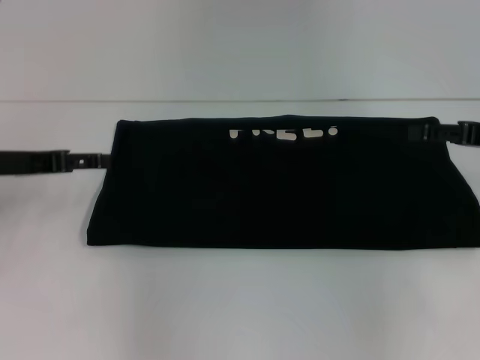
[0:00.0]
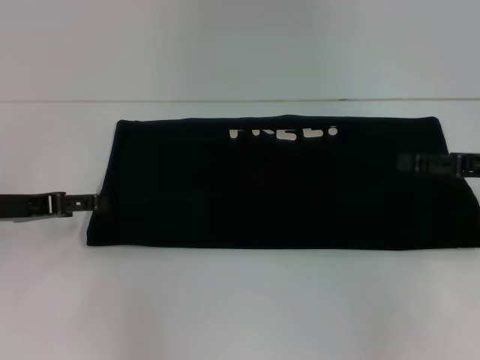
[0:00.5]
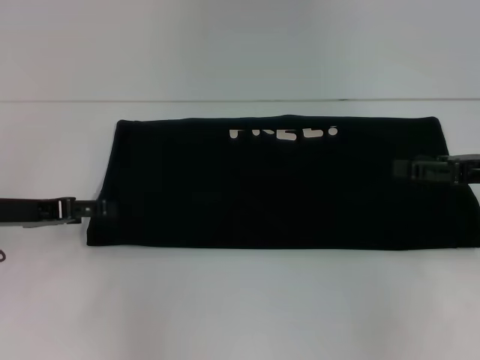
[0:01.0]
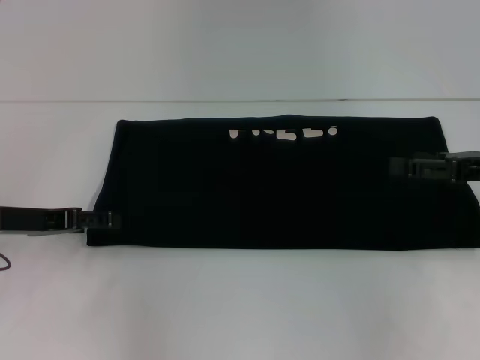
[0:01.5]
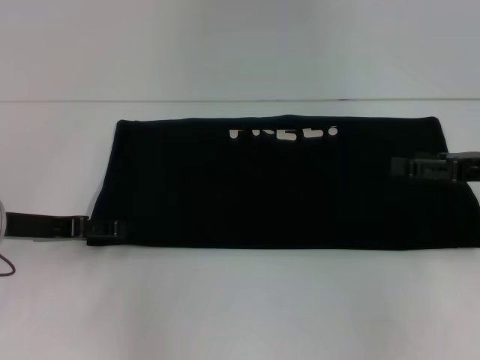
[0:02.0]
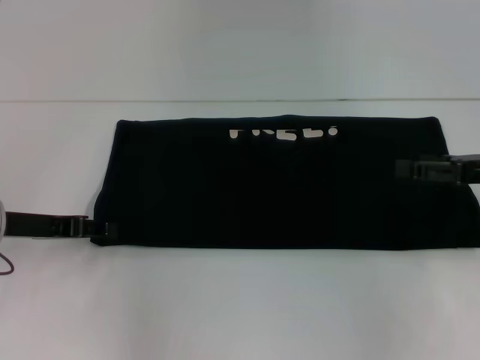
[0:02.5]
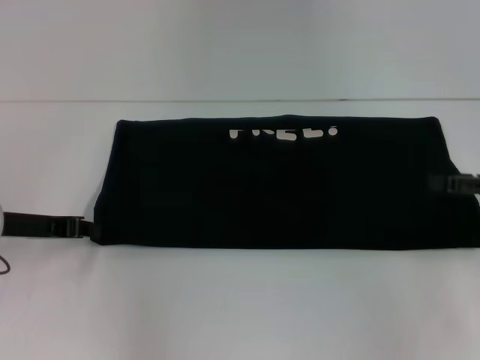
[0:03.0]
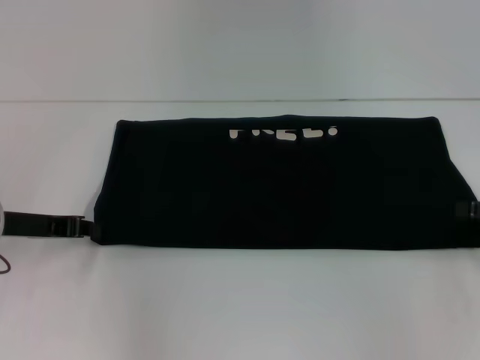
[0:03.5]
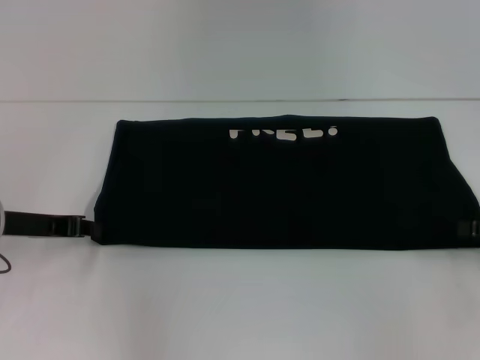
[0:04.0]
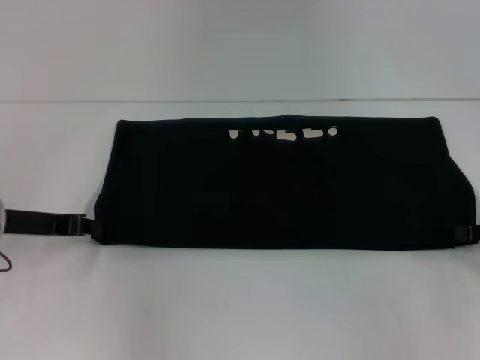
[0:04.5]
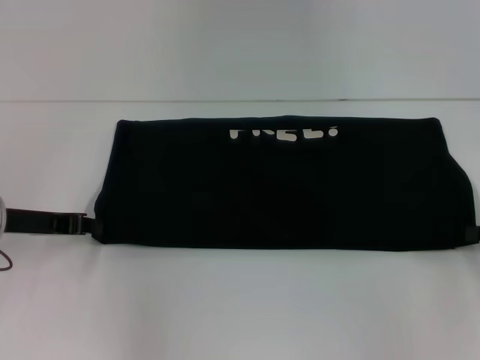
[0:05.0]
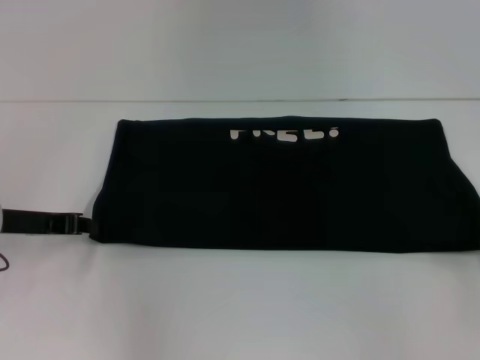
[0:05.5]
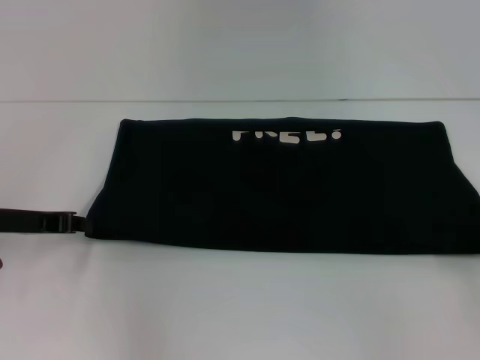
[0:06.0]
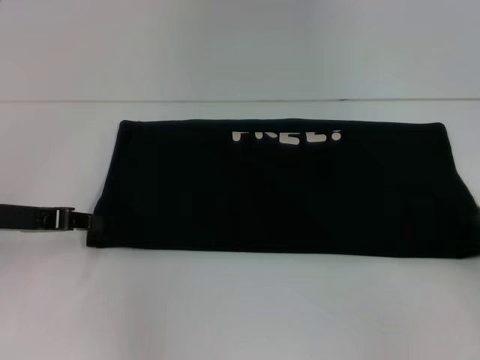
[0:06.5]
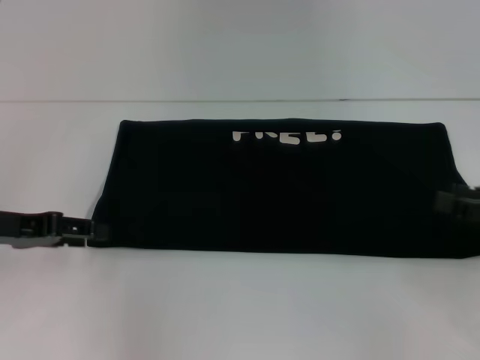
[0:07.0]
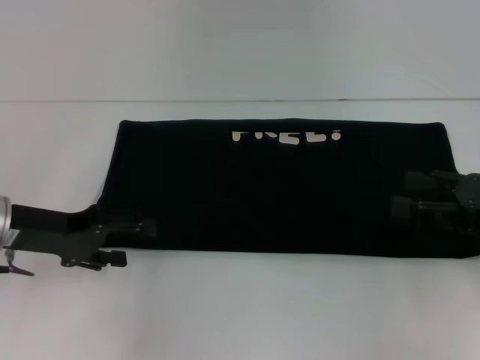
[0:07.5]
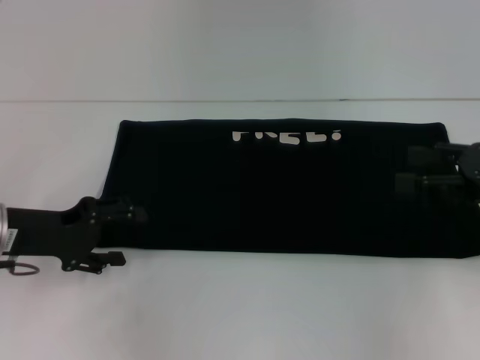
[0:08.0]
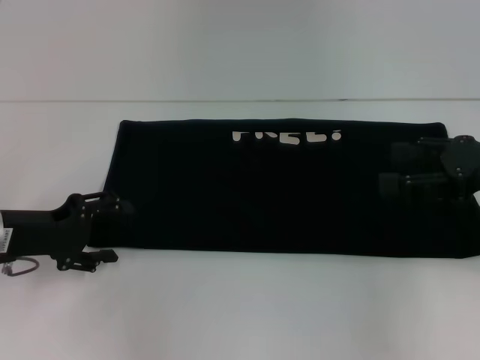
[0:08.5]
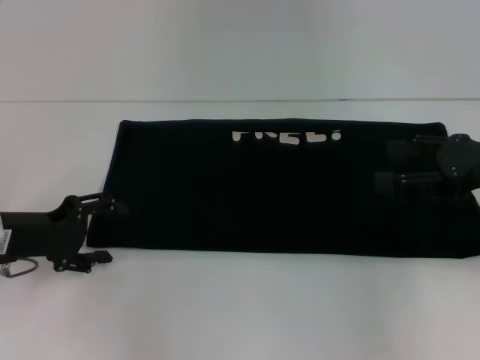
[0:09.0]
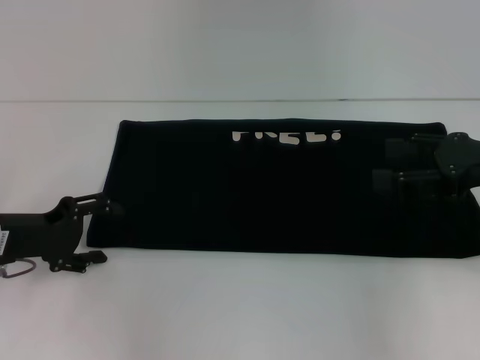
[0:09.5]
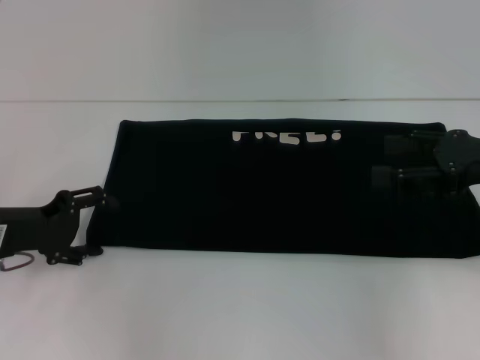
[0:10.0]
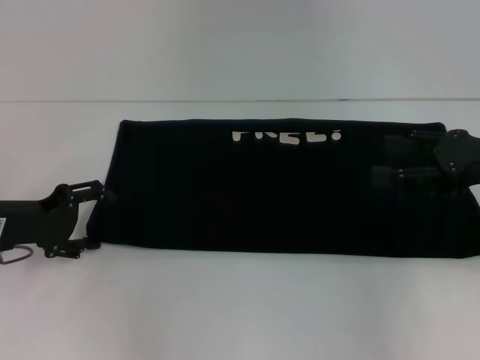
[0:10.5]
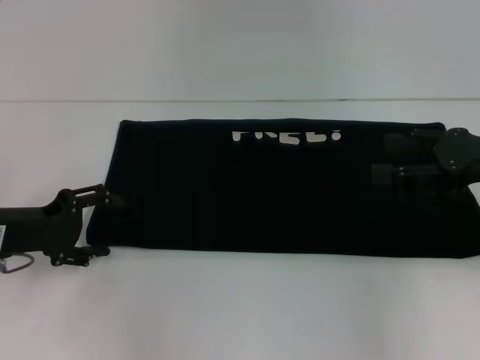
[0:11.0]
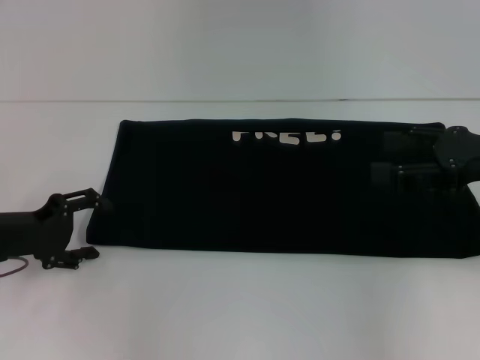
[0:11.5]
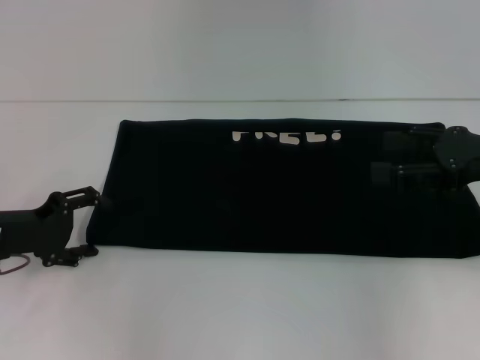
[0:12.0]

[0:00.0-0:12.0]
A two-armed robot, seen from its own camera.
0:00.0 to 0:02.0: The left gripper shifts by approximately 5 cm.
0:02.0 to 0:04.0: The left gripper closes up.
0:04.0 to 0:06.0: The right gripper closes.
0:06.0 to 0:08.0: The right gripper shifts roughly 10 cm upward and to the left, and opens its fingers. Meanwhile the left gripper opens up.
0:08.0 to 0:10.0: The grippers stay close to where they were, moving slightly.
0:10.0 to 0:12.0: Neither gripper changes place.

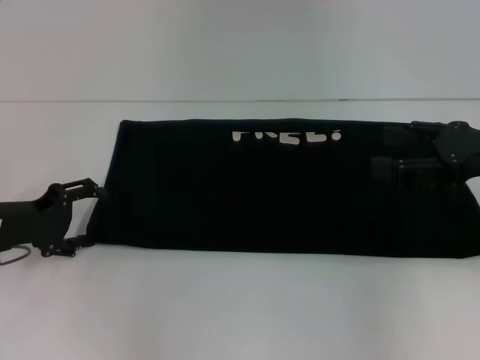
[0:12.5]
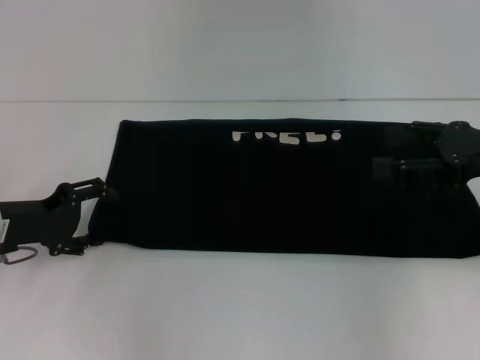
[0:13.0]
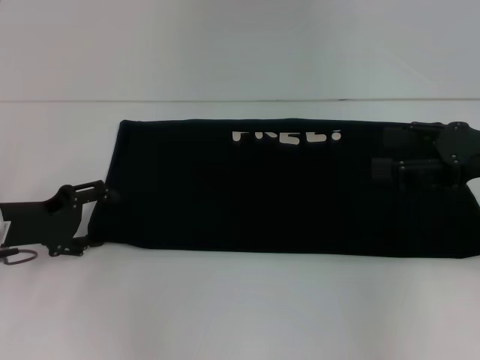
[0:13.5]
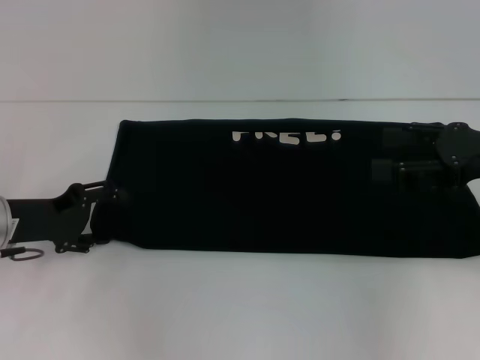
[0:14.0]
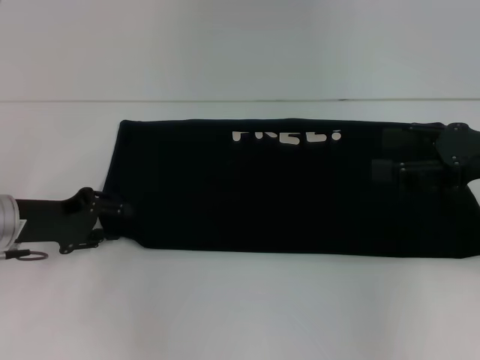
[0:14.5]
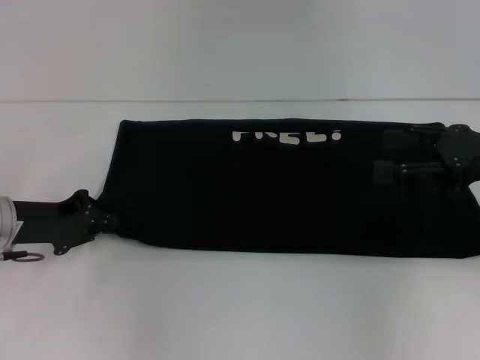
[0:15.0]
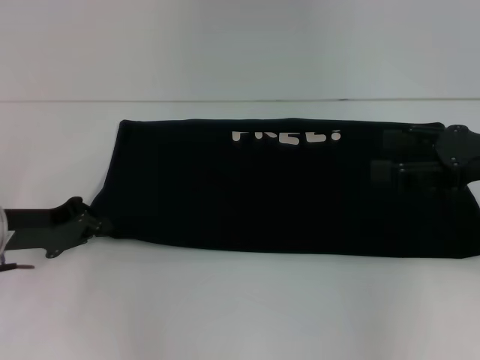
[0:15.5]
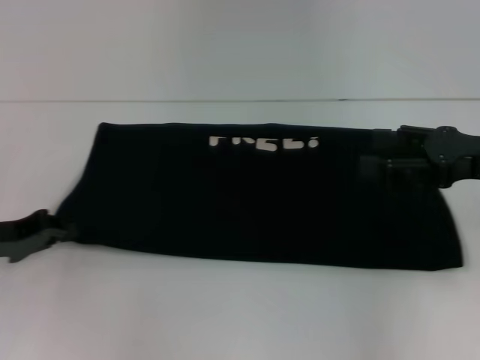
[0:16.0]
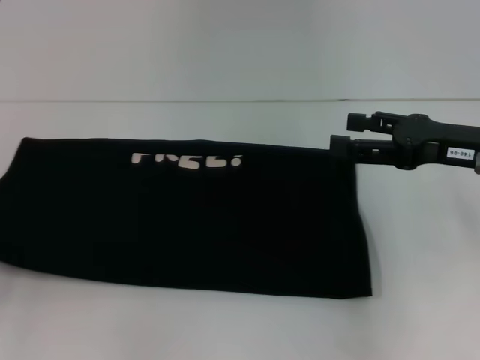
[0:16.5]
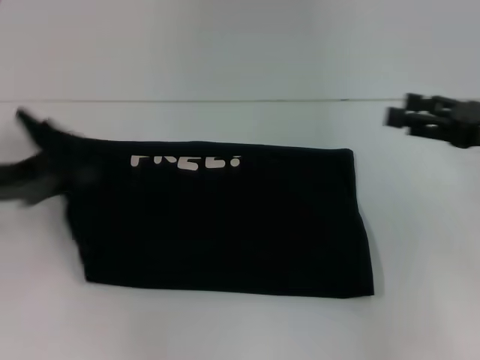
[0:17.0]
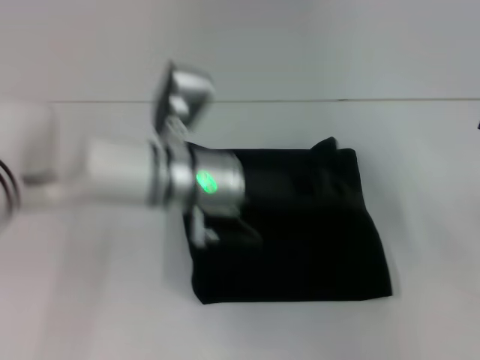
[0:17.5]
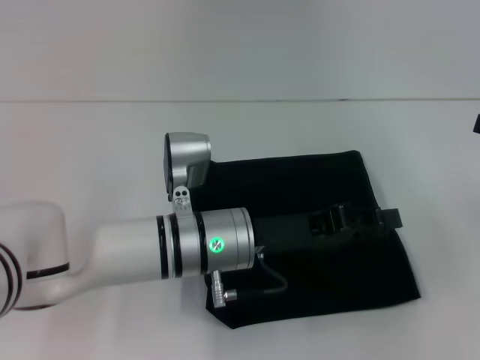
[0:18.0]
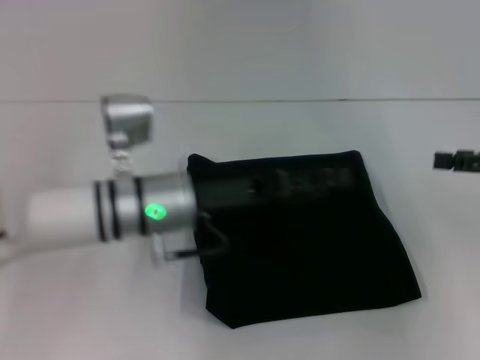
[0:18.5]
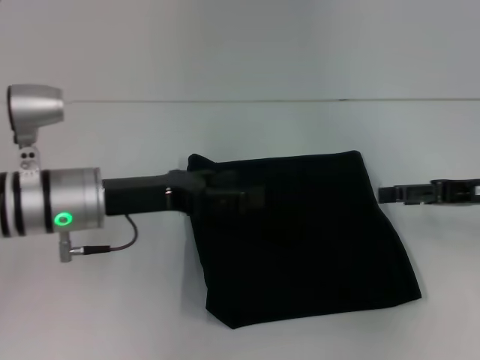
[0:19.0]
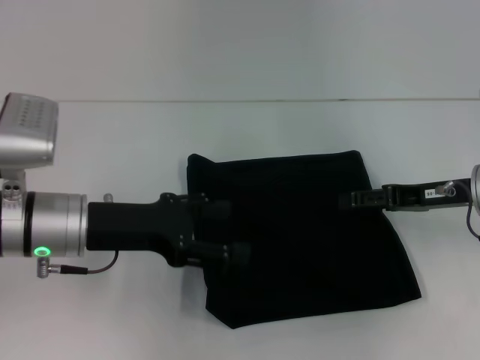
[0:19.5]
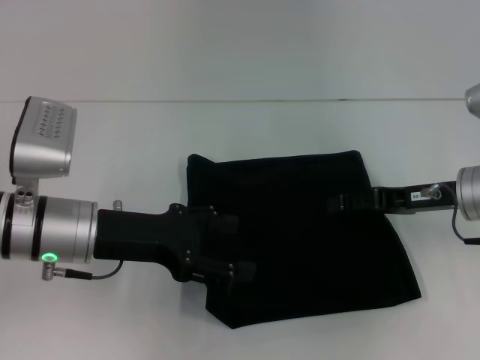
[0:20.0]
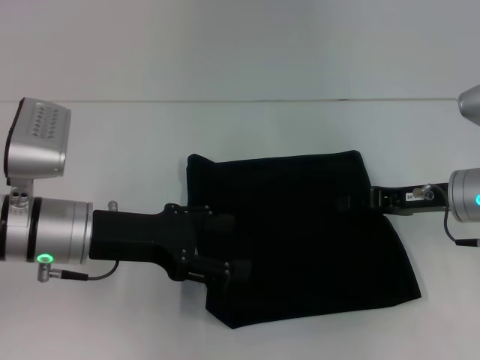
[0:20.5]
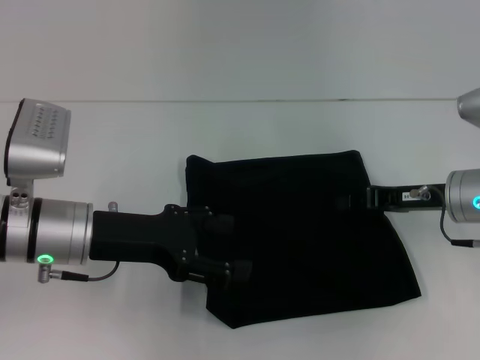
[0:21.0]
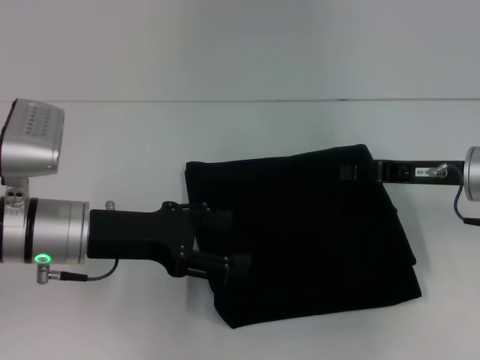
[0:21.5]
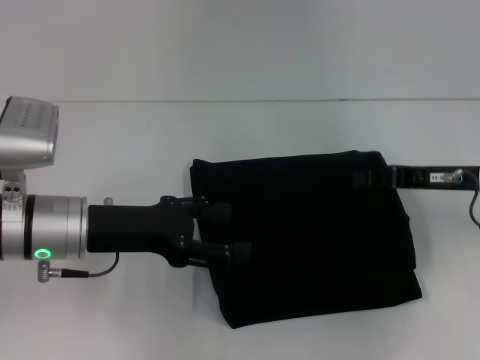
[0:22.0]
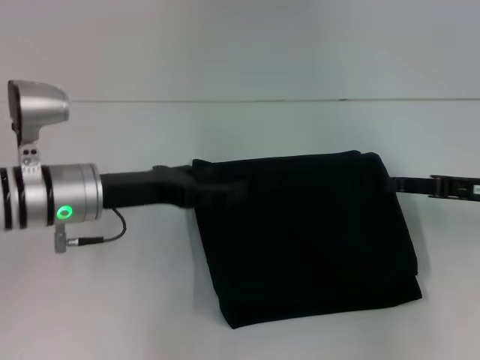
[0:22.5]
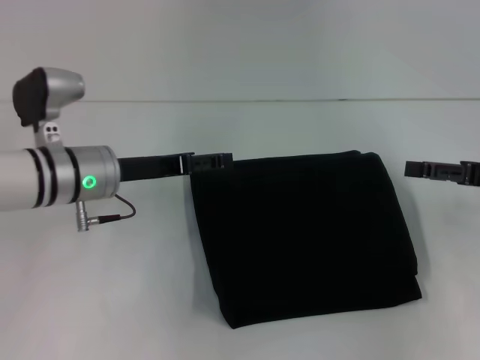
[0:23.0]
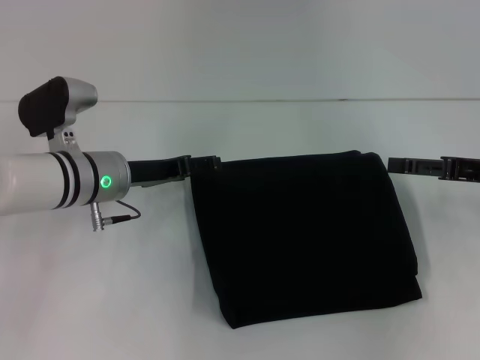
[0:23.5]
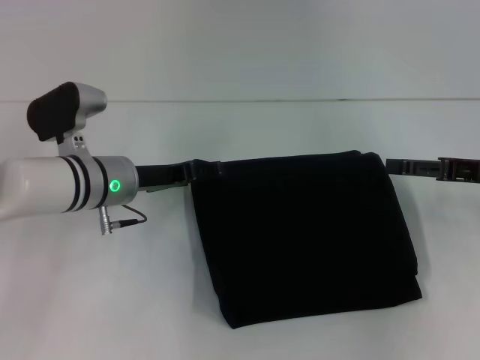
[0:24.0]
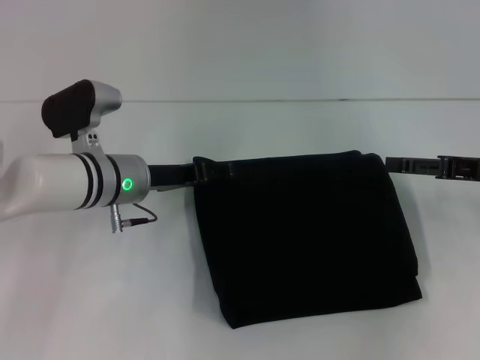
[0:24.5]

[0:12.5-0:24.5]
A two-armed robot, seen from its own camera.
Step, 0:12.5 to 0:18.0: Fold the clothes with your left hand.
0:12.5 to 0:14.5: The grippers move only a little.
0:14.5 to 0:16.5: The left gripper travels to the left and backward by roughly 15 cm, and closes up.
0:16.5 to 0:18.5: The left gripper travels to the right by about 30 cm, and opens. Meanwhile the right gripper goes roughly 10 cm to the right.
0:18.5 to 0:20.5: The right gripper goes some 15 cm to the left and downward, and closes its fingers. Meanwhile the left gripper moves to the left, approximately 10 cm, and opens its fingers.
0:20.5 to 0:22.5: The right gripper moves to the right, some 5 cm.
0:22.5 to 0:24.5: The right gripper opens its fingers. The left gripper goes some 5 cm forward.

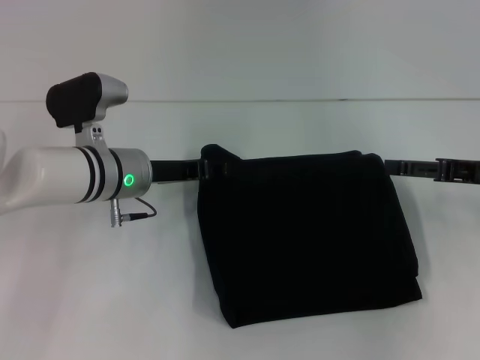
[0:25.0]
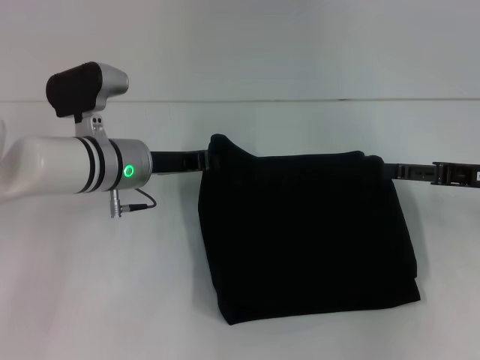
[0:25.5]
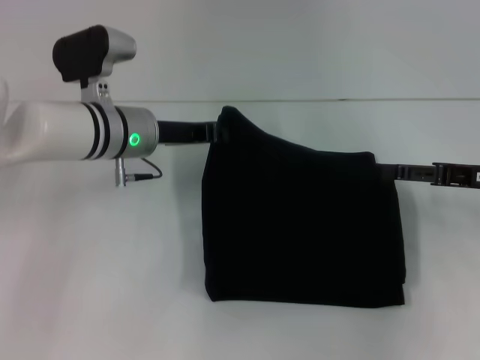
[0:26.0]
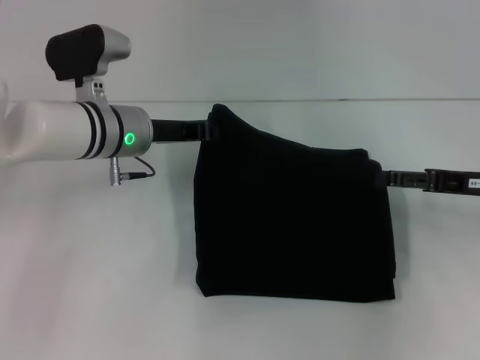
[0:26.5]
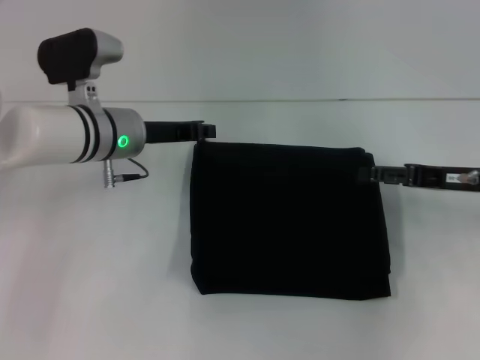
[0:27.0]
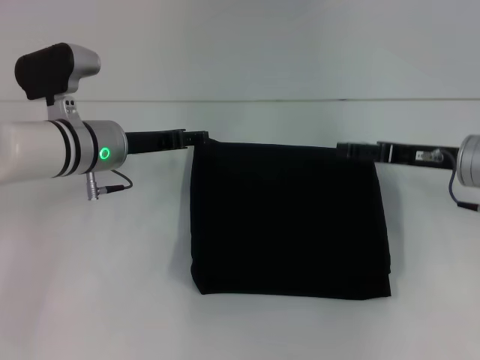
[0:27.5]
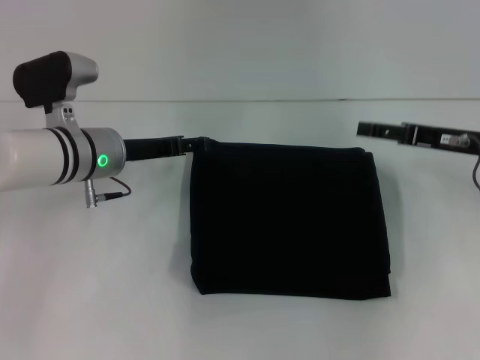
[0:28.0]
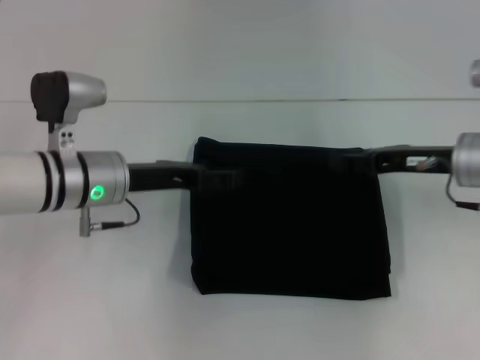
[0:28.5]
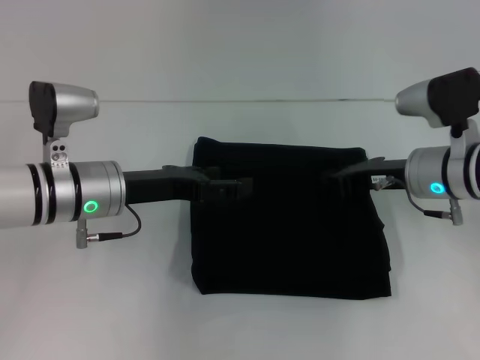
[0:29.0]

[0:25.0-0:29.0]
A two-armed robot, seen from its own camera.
0:25.0 to 0:27.0: The left gripper closes its fingers.
0:27.0 to 0:29.0: The left gripper heads backward, covering some 5 cm, and opens its fingers. The right gripper heads to the left, covering about 10 cm, and closes its fingers.
